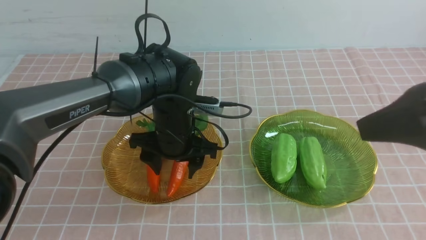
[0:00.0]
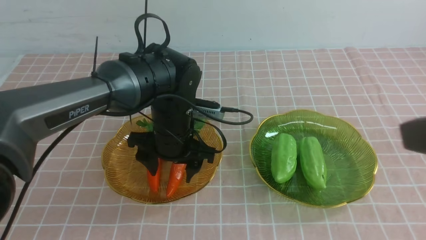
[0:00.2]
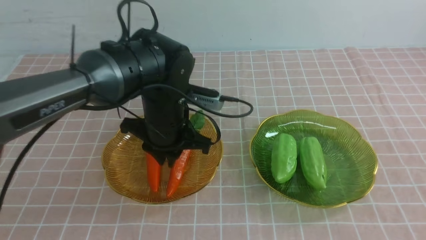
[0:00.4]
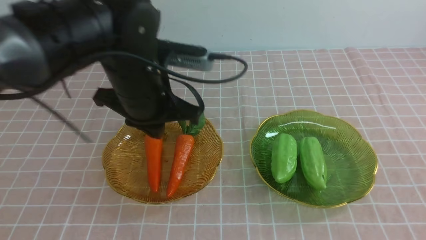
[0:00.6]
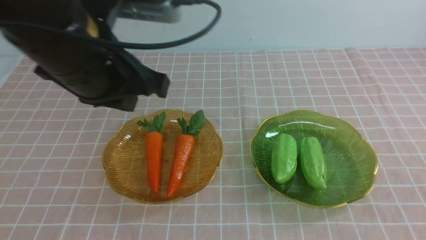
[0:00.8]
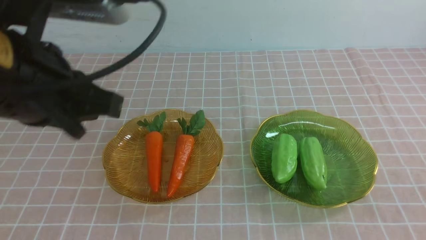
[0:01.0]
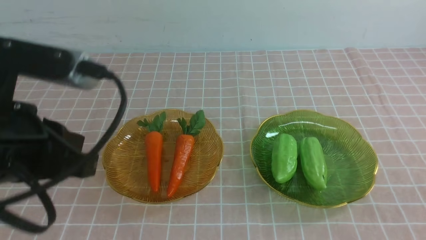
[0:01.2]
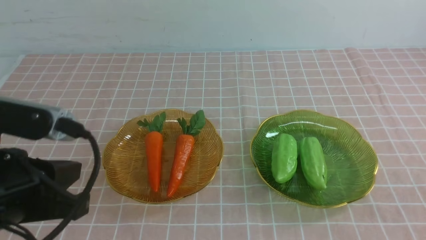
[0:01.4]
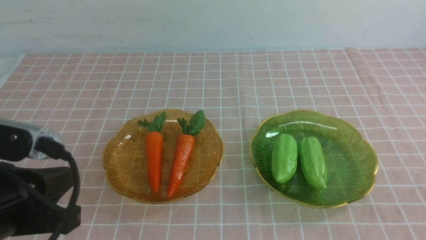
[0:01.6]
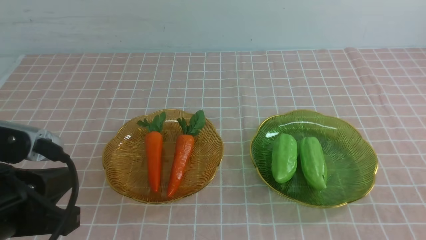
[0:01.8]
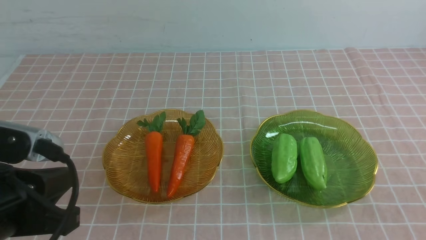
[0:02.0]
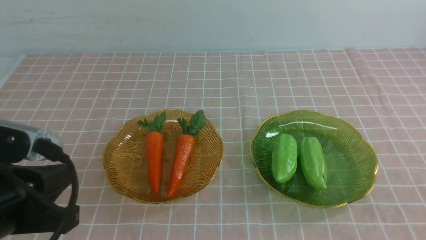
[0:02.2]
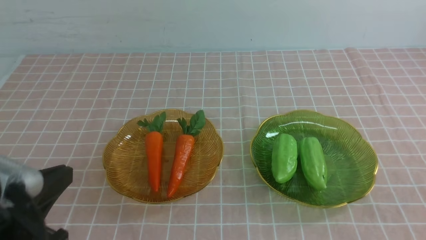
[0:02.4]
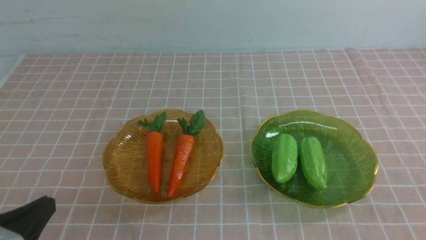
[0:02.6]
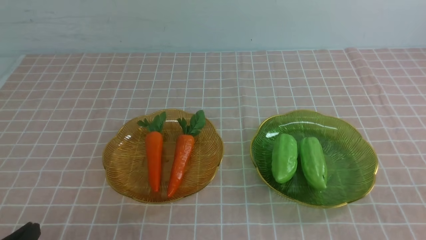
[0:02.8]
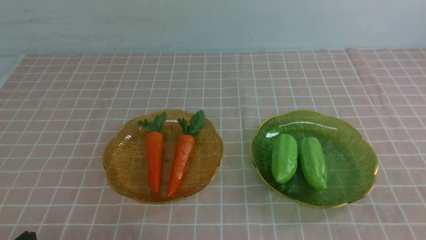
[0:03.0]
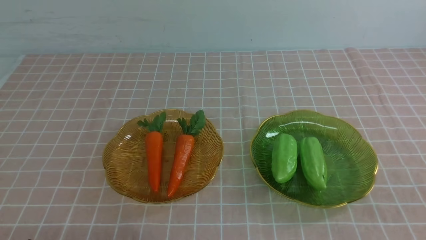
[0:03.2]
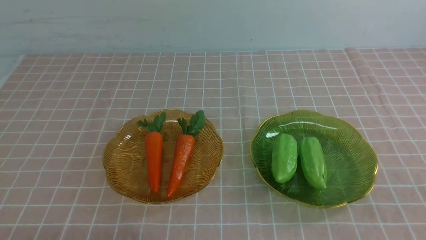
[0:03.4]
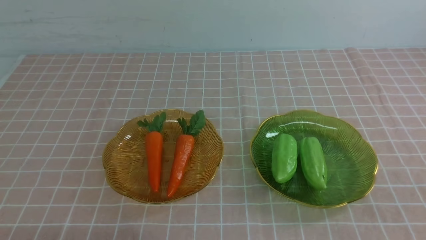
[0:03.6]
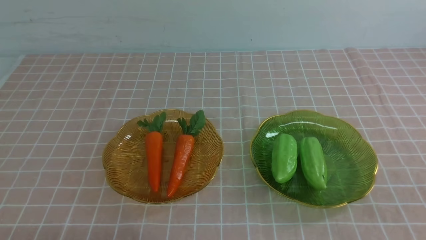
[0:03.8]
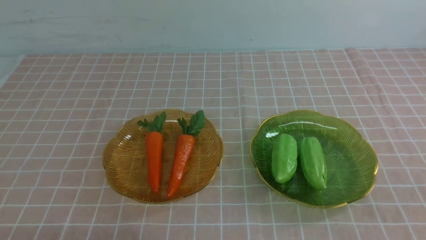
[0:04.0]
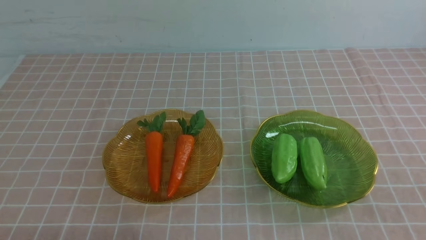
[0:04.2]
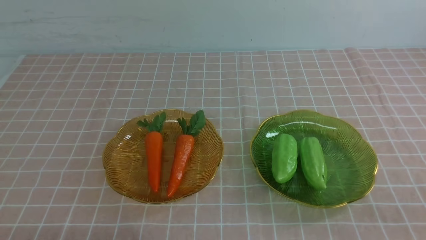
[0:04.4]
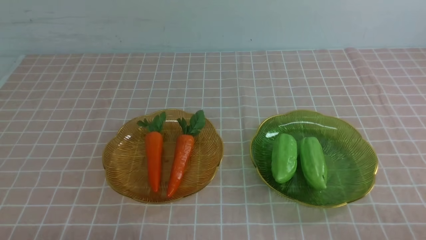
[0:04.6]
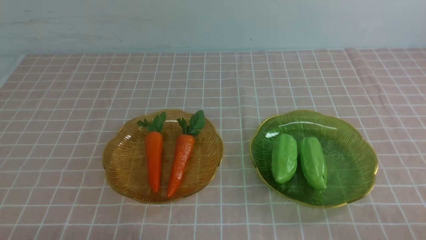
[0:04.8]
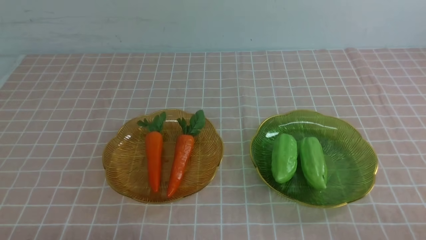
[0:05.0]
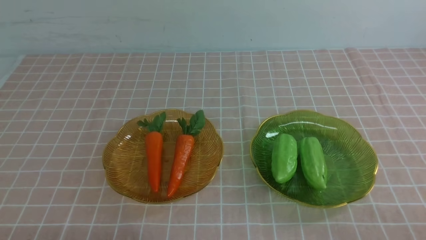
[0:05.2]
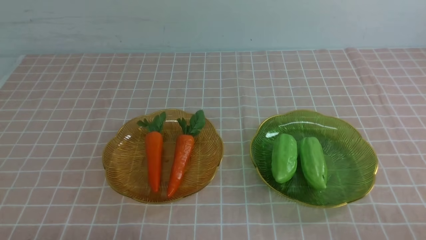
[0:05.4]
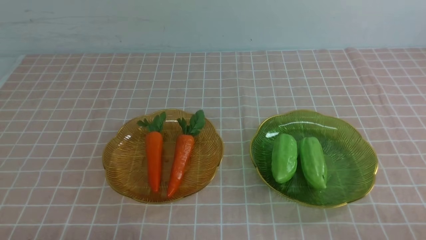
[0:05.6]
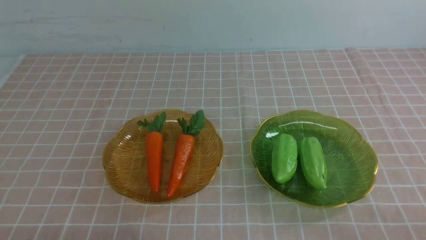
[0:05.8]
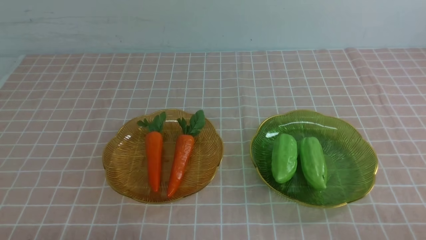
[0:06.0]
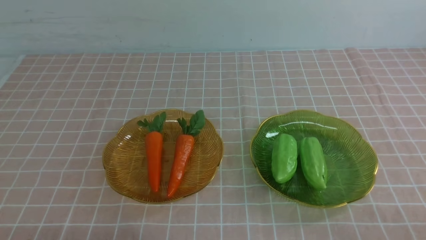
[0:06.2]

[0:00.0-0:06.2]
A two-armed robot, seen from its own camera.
0:00.0 to 0:01.6: The right gripper travels backward, to the right and downward by roughly 15 cm, and closes. The left gripper is displaced backward, to the left and upward by approximately 25 cm, and closes.
0:01.6 to 0:03.2: The left gripper goes some 15 cm downward and backward.
